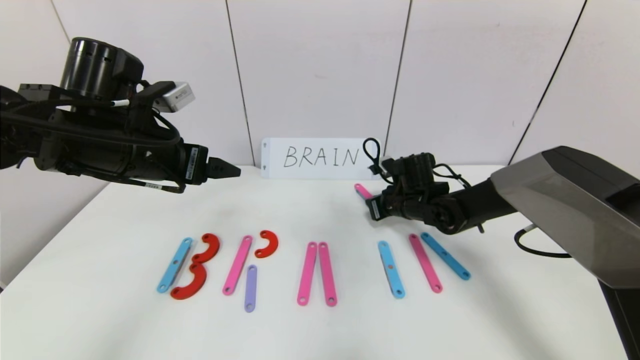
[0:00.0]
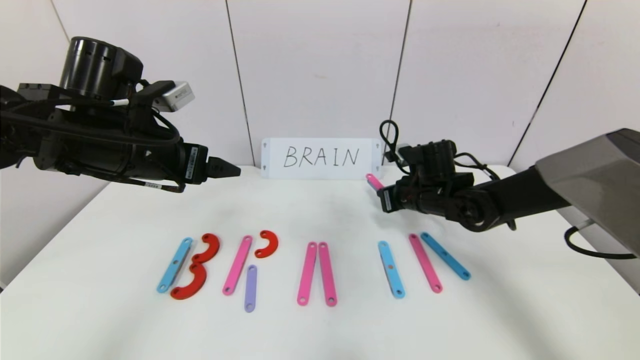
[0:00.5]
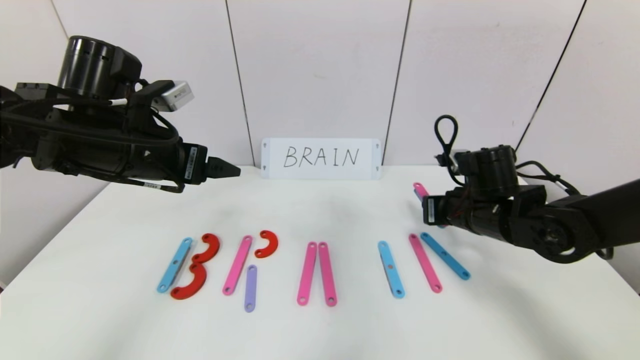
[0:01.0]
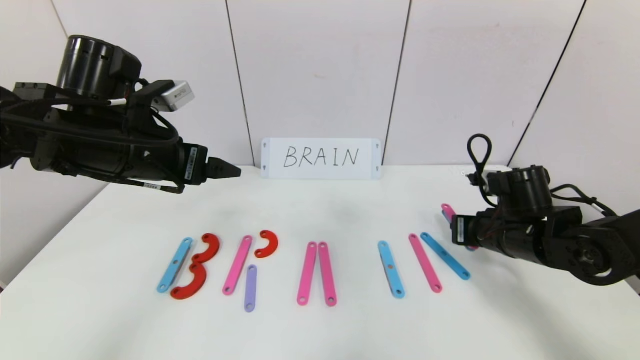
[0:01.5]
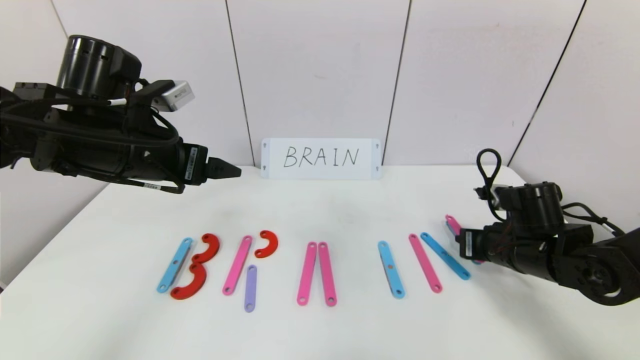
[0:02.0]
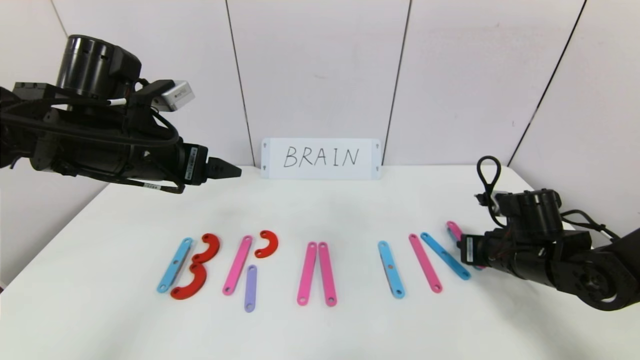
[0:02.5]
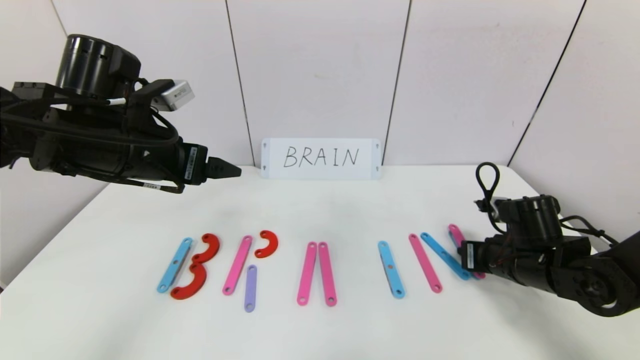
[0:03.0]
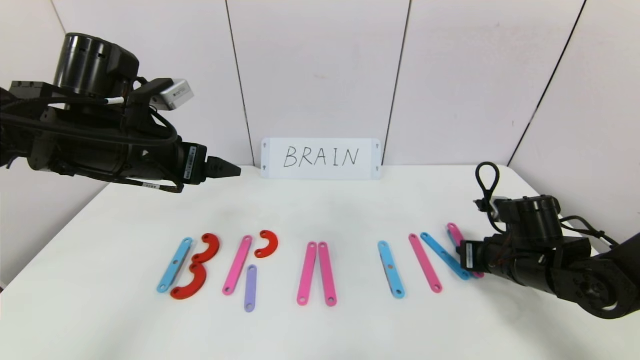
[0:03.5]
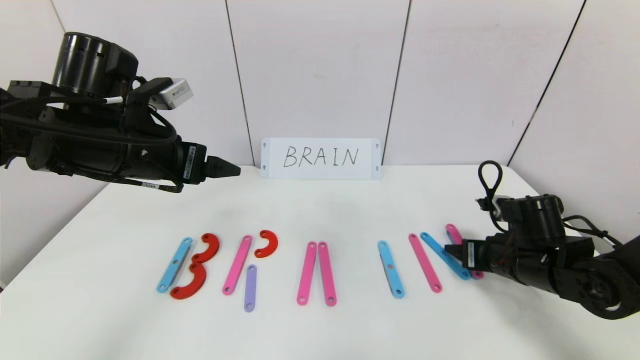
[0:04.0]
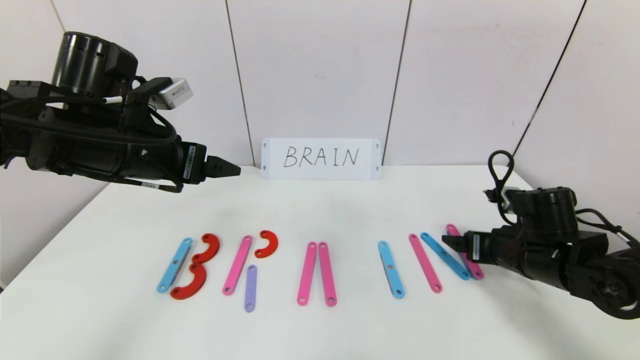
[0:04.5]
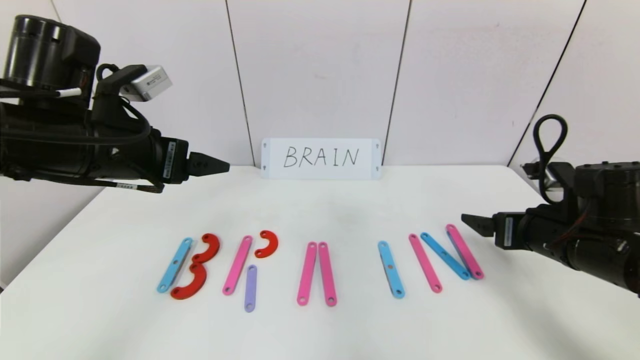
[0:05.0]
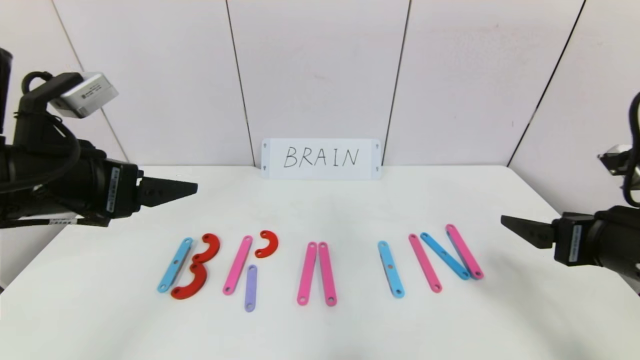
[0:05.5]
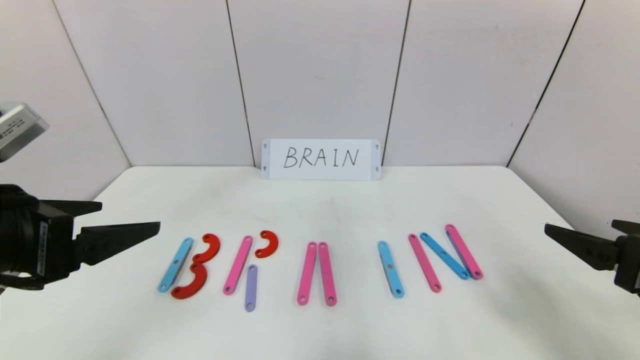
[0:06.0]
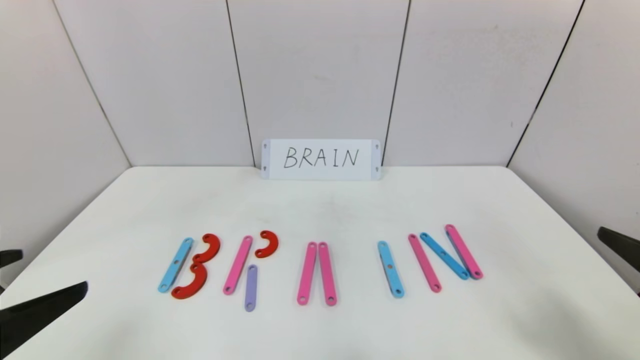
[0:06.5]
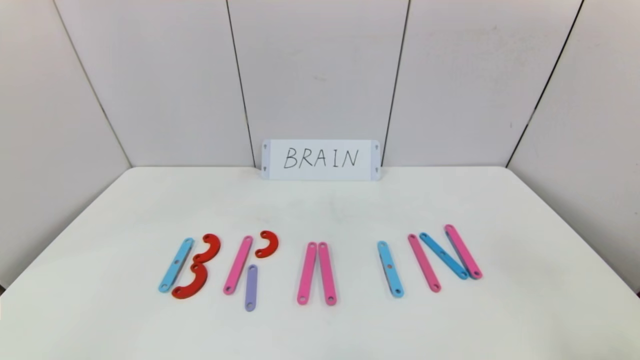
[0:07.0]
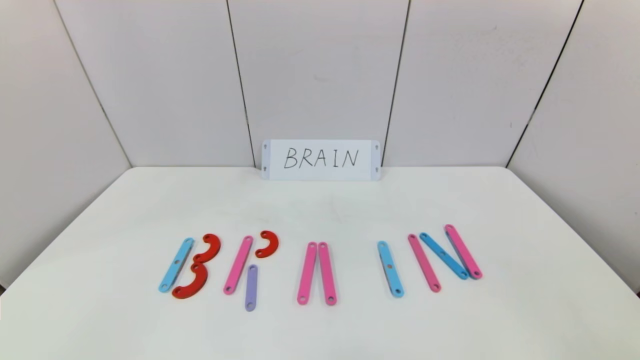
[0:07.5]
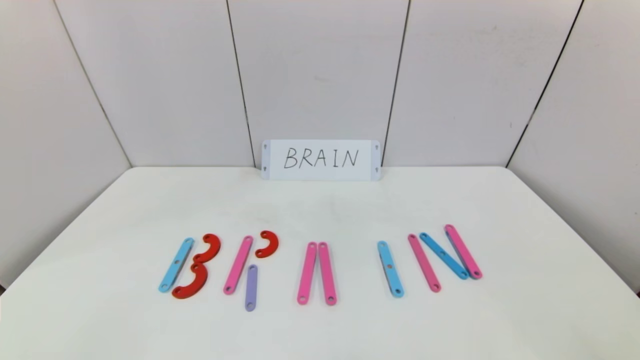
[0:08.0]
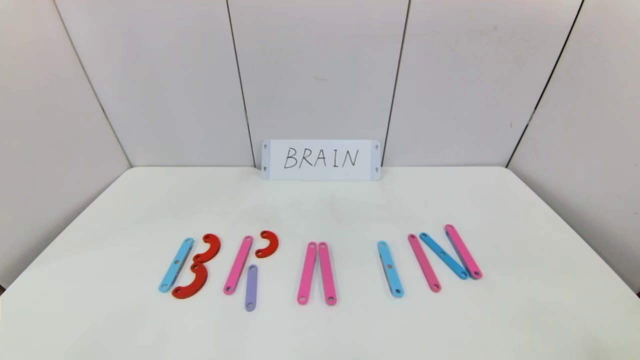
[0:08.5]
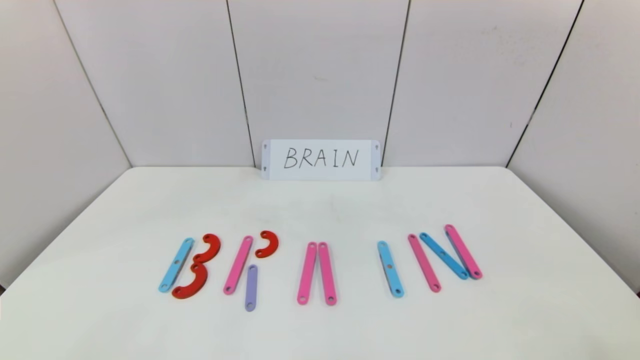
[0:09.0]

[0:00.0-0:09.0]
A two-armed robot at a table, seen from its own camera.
Task of the whole recording: rearrange the word baai as brain.
Step, 0:00.0 to 0:05.0: Place the character N after character I.
0:00.0 to 0:02.0: The right gripper goes roughly 20 cm backward and to the right.
0:02.0 to 0:04.5: The right gripper opens up.
0:04.5 to 0:07.0: The grippers both shift backward by approximately 30 cm.
